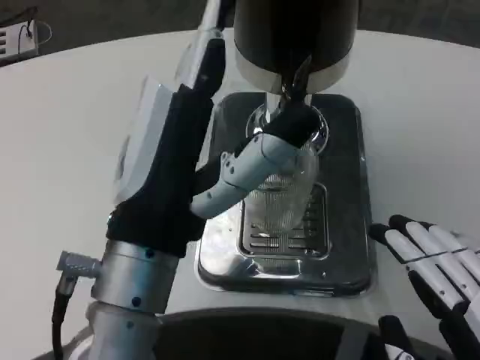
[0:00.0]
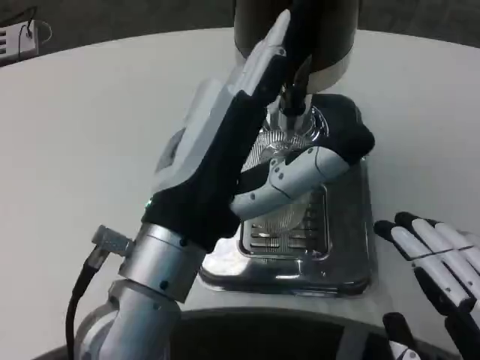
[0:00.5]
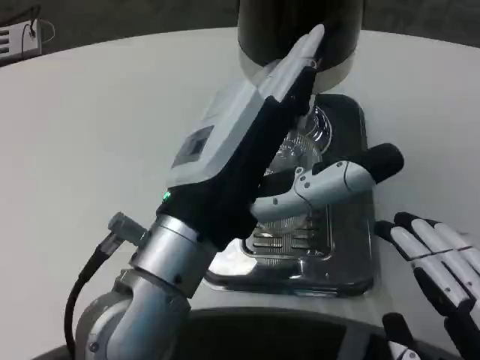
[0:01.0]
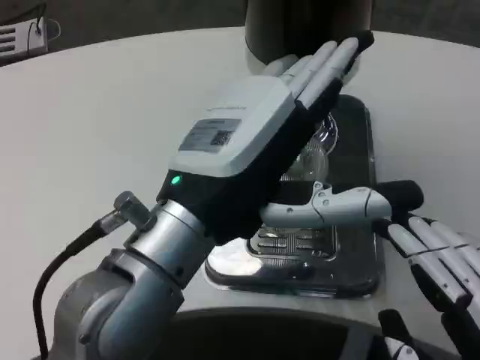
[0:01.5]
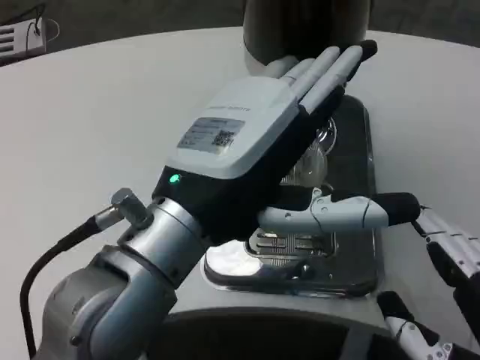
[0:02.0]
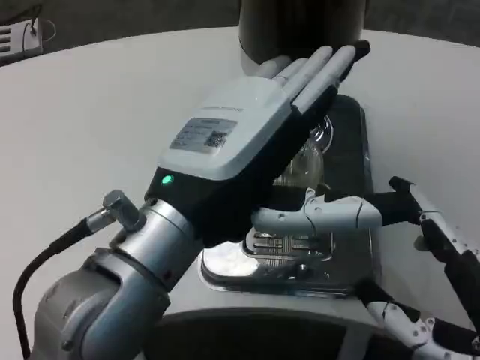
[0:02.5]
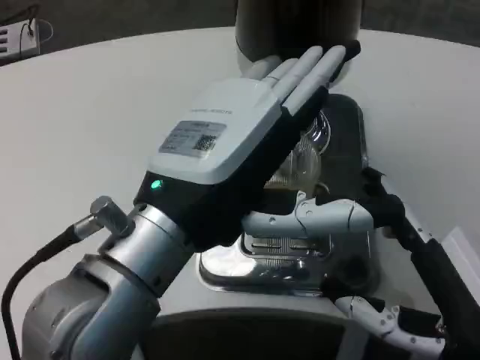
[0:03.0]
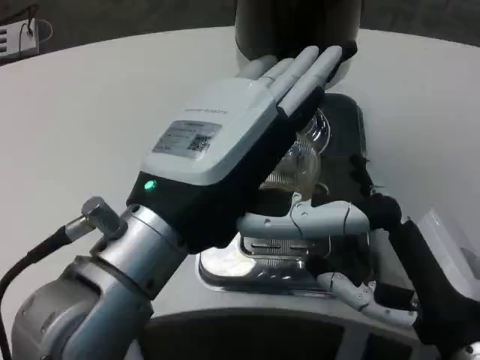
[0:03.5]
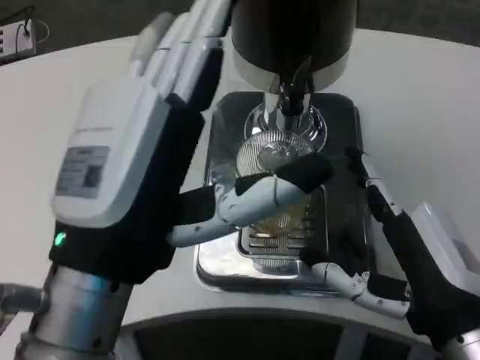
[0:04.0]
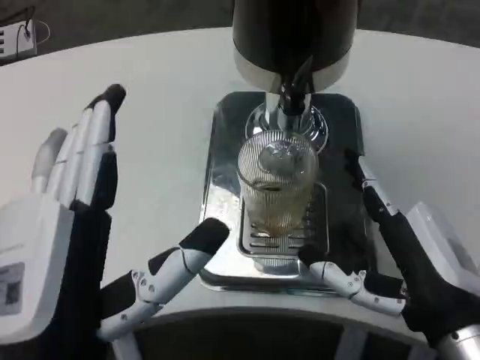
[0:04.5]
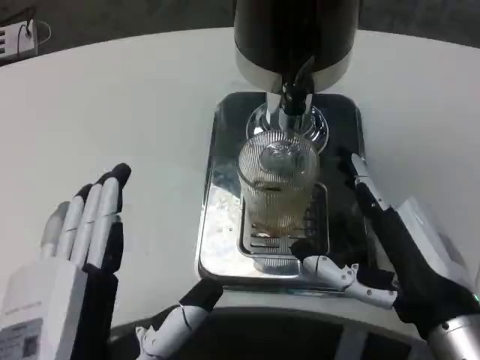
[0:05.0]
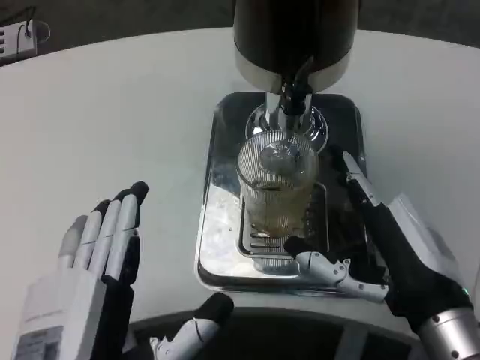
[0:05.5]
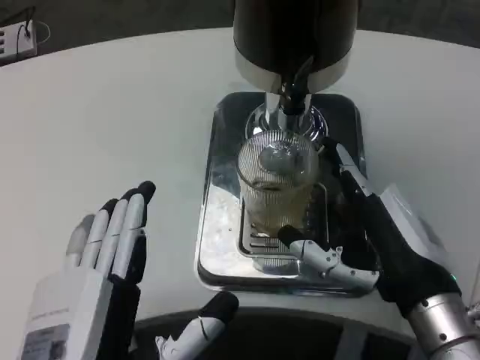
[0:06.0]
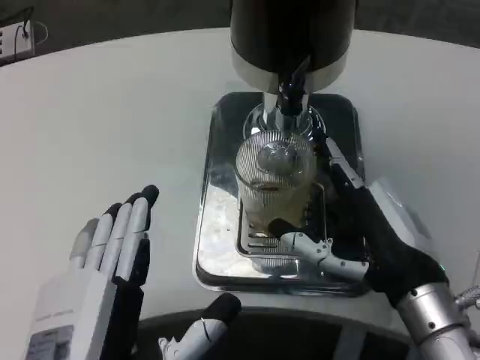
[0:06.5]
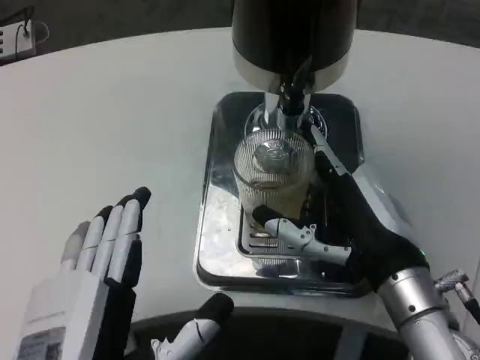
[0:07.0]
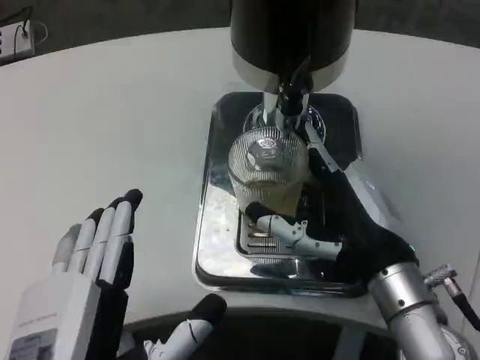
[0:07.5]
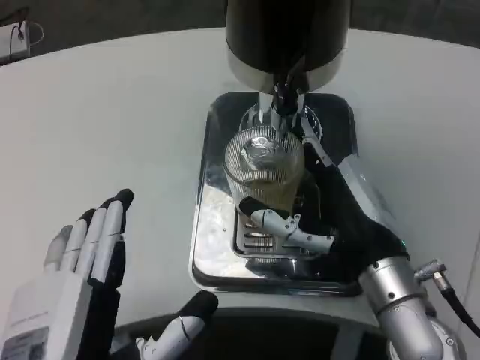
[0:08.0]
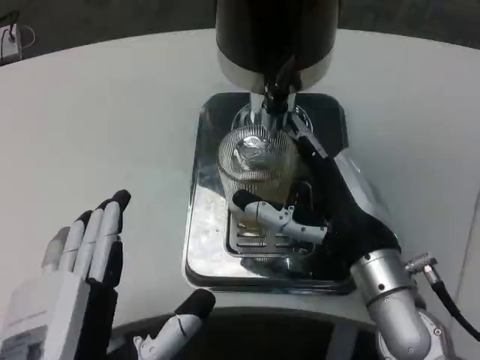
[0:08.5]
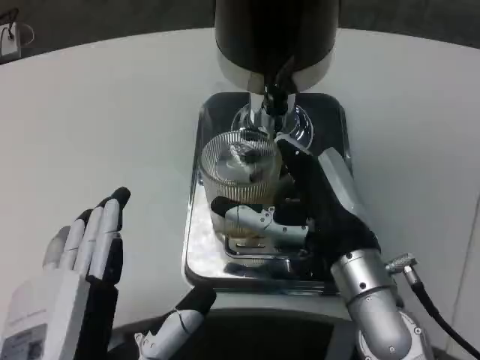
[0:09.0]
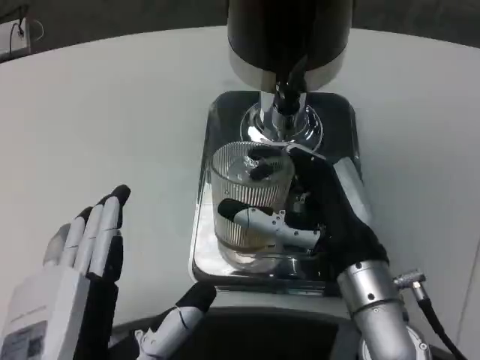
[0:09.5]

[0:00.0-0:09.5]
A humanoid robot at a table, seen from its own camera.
Task of the whole recording: Grasp the cup under the faucet to collect the drink, then remove the cup.
0:02.0 to 0:04.0: The right hand goes about 10 cm forward. Meanwhile the left hand shifts by approximately 5 cm.
0:04.0 to 0:05.5: The left hand travels downward by about 10 cm.
0:05.5 to 0:07.5: The right hand ends up roughly 5 cm from where it was.

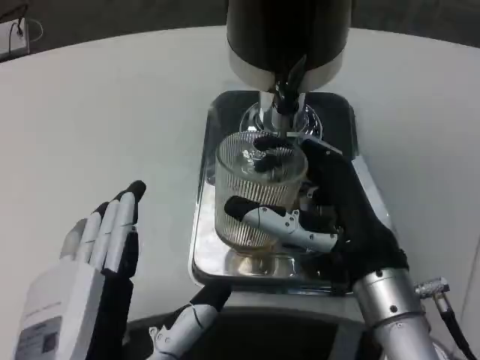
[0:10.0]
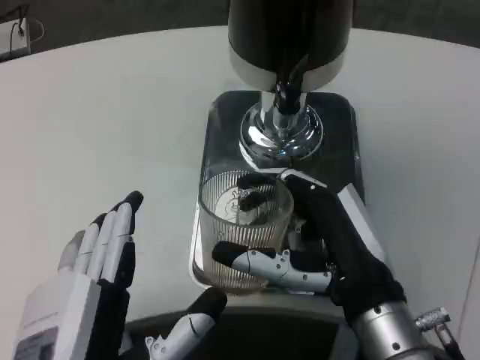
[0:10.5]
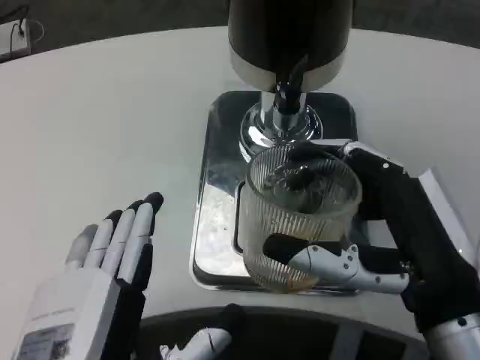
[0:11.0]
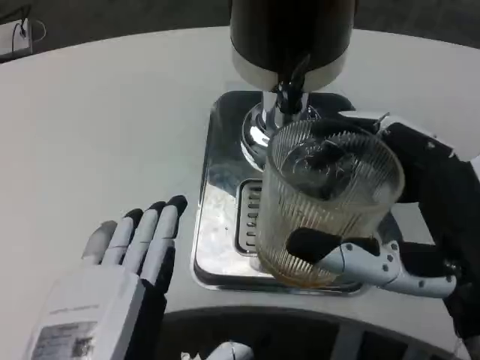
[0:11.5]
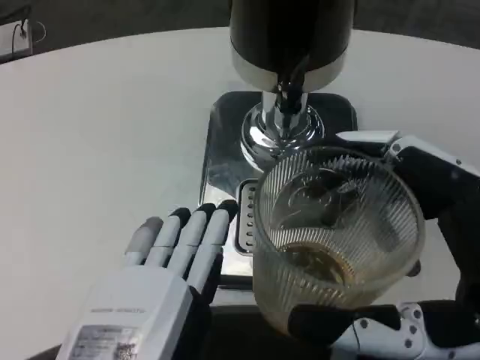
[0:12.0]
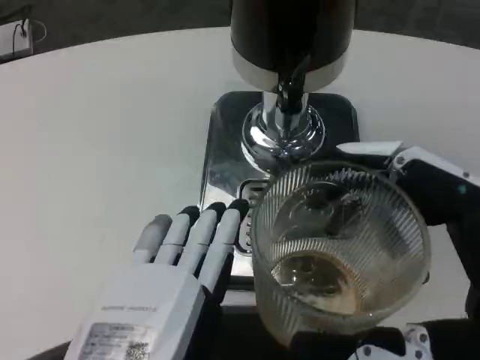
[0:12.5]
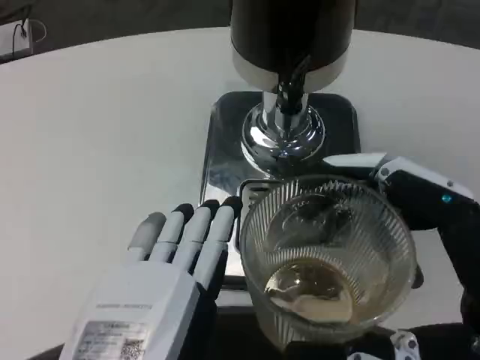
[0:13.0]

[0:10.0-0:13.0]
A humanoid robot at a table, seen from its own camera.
Task of the whole recording: Grasp the cup under the faucet to collect the drink, then remove the cup.
0:10.0 to 0:11.5: The right hand moves backward, approximately 10 cm.

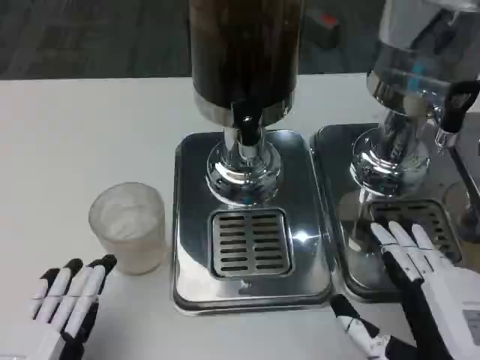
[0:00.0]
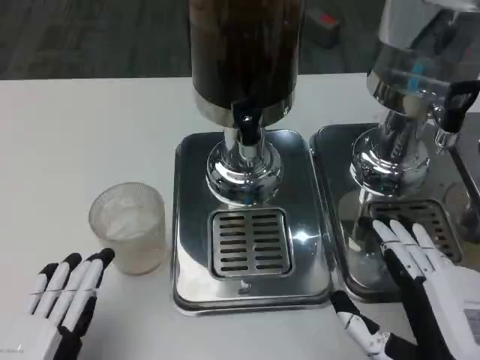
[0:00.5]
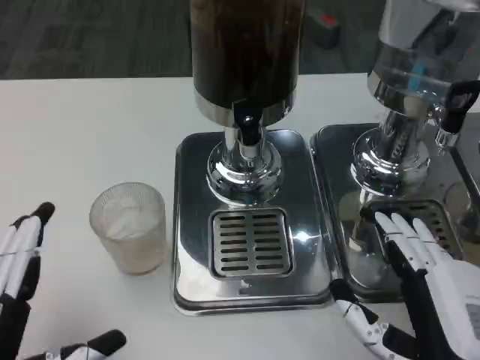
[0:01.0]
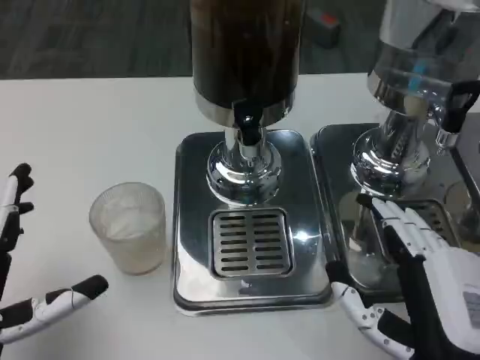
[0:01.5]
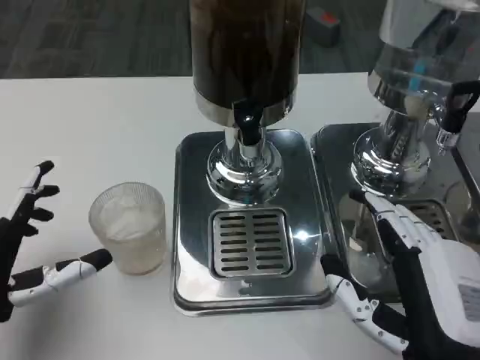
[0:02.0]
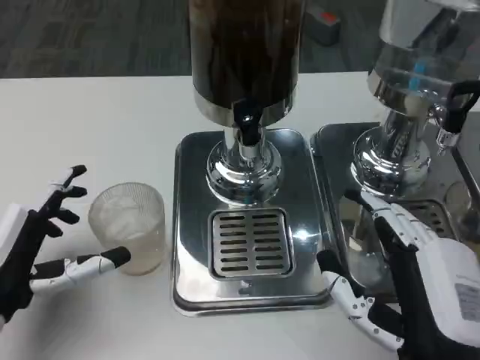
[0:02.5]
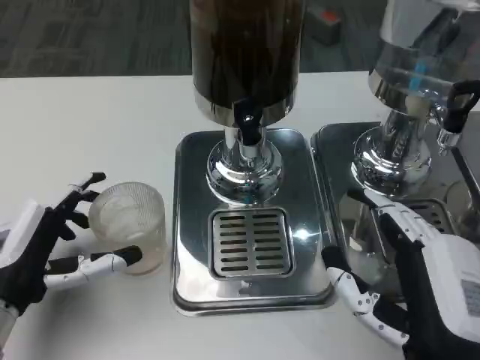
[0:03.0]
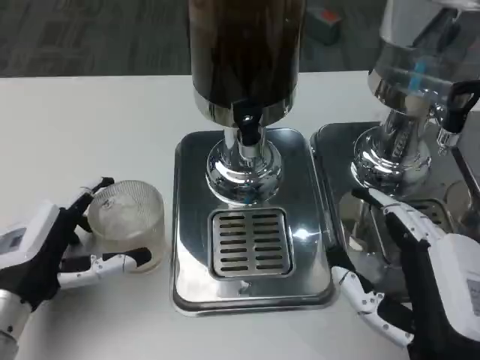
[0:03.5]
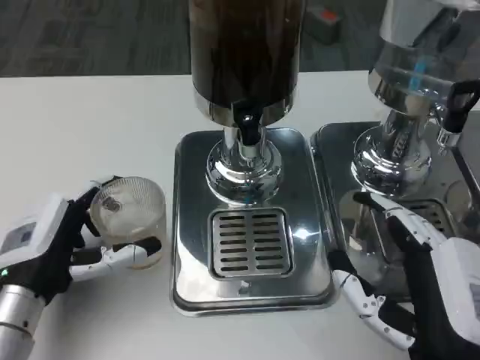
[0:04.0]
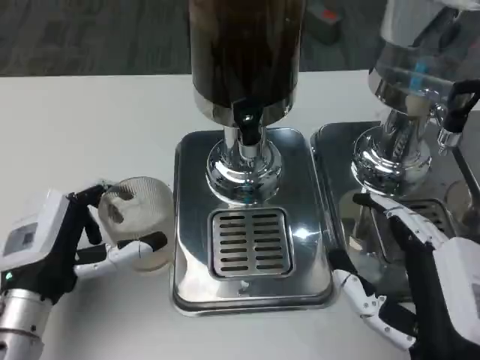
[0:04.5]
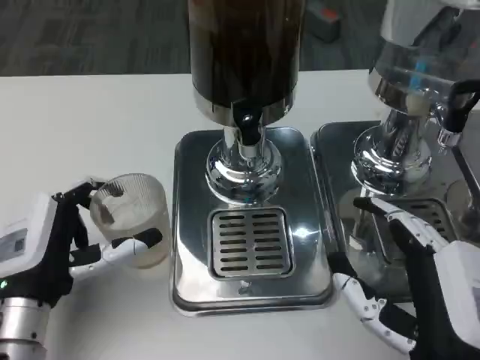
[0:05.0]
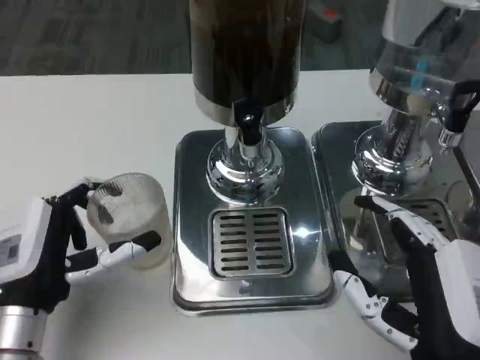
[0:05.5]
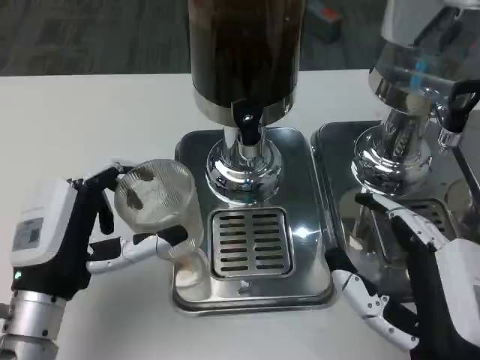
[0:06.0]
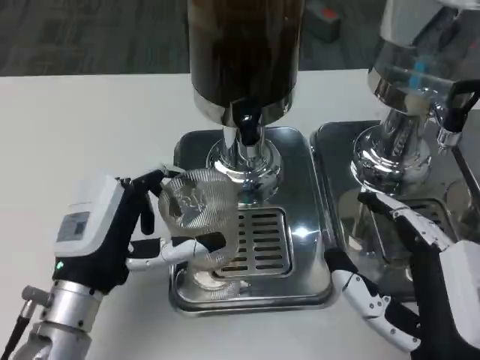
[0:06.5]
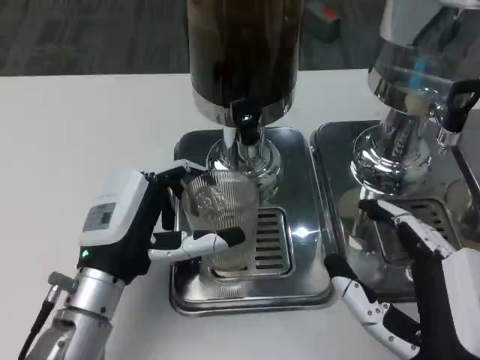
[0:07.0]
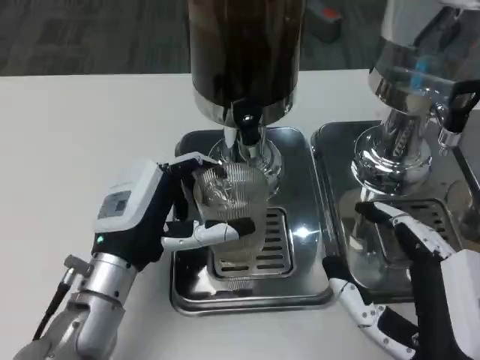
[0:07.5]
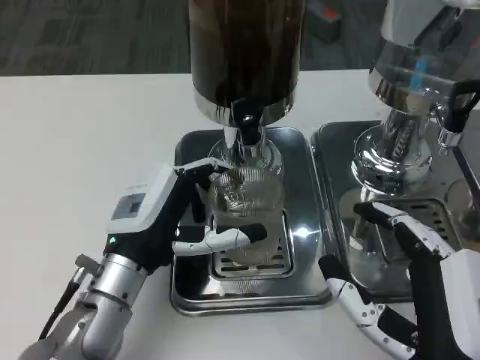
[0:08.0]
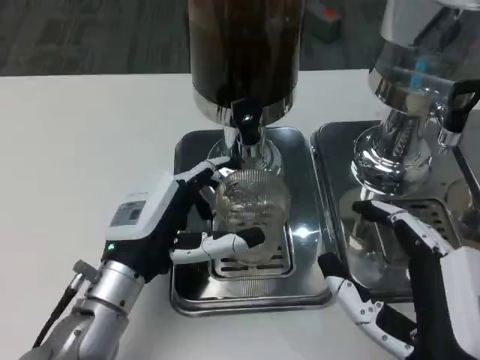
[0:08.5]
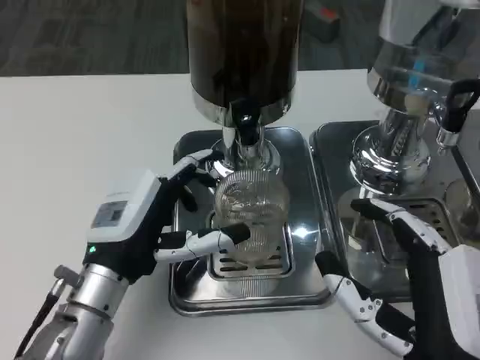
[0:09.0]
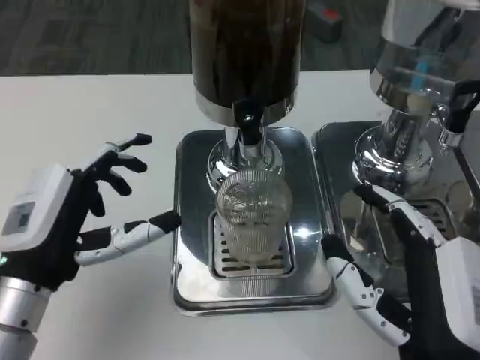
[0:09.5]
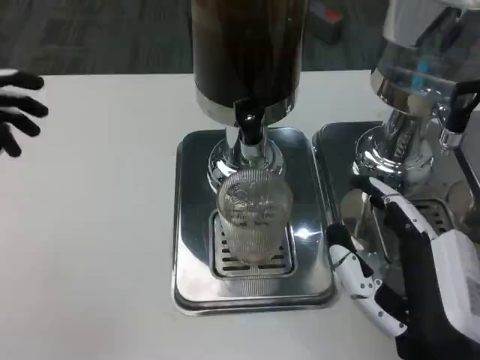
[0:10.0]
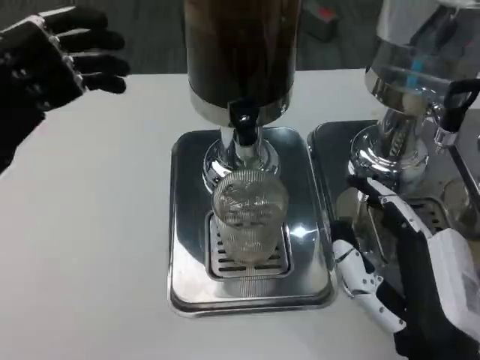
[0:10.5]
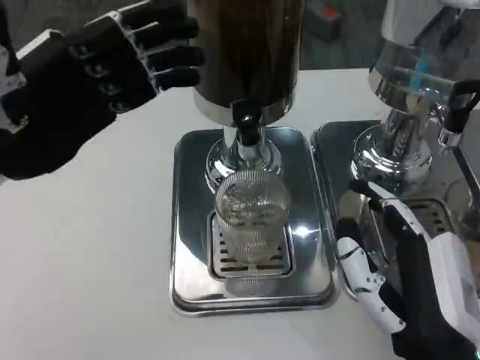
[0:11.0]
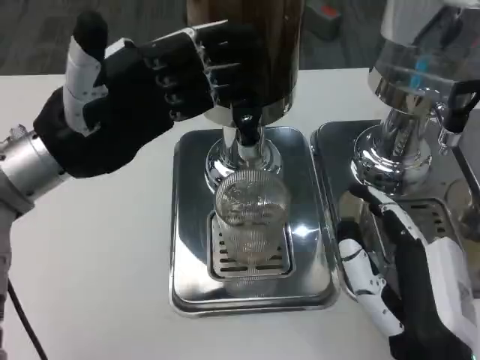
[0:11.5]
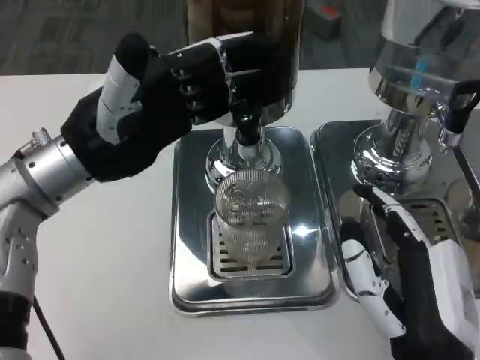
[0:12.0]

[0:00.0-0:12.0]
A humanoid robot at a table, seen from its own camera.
Task of the whole recording: Grasp the cup under the faucet to collect the drink, then remove the cup.
0:00.0 to 0:02.0: The left hand travels forward by roughly 10 cm.
0:02.0 to 0:04.0: The left hand ends up about 5 cm from where it was.
0:04.0 to 0:06.0: The hands move only a little.
0:06.0 to 0:08.0: The left hand heads to the right, covering about 5 cm.
0:08.0 to 0:10.0: The left hand travels to the left and upward by roughly 15 cm.
0:10.0 to 0:12.0: The left hand shifts about 15 cm forward and to the right.

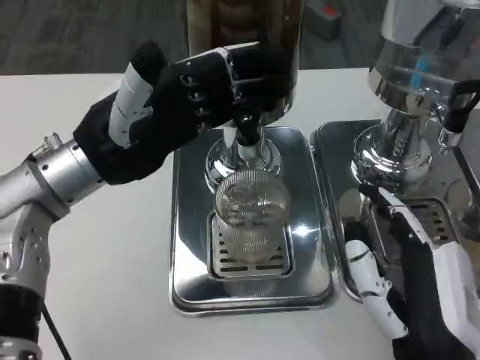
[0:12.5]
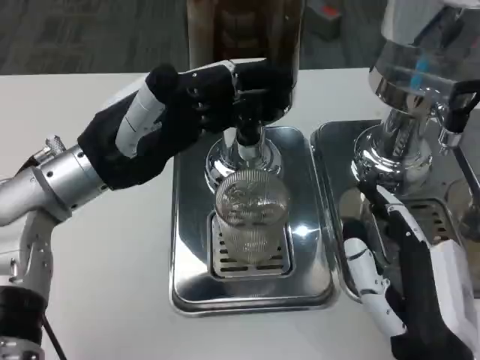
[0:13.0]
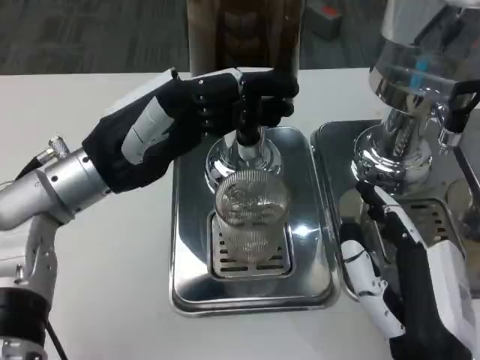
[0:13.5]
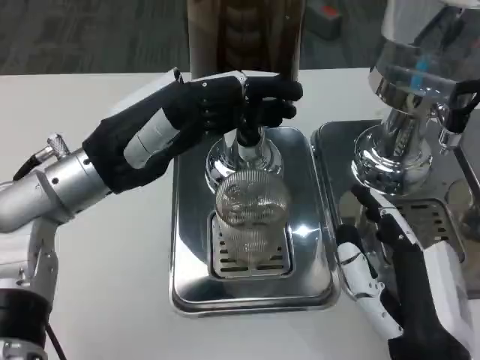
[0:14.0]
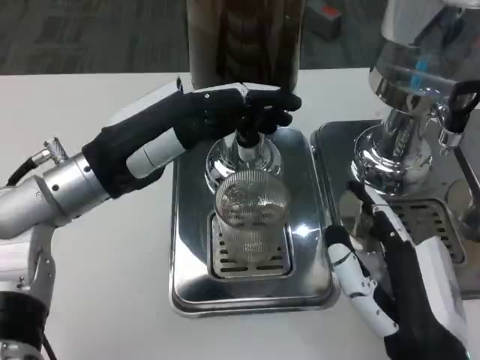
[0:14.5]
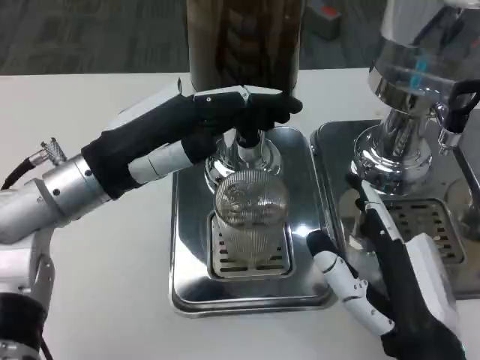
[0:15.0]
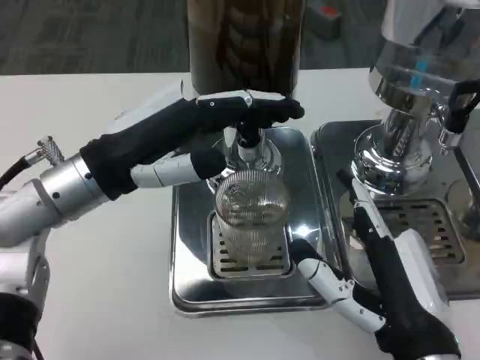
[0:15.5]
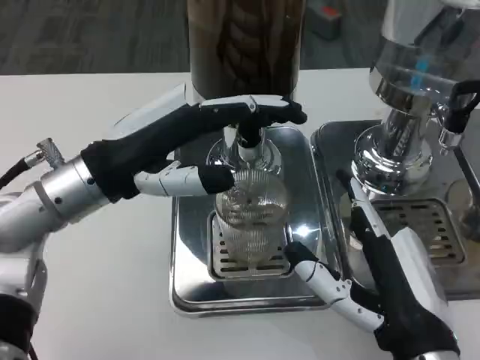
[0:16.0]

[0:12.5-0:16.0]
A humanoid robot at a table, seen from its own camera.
Task of the whole recording: Grasp the cup under the faucet to collect the drink, then remove the cup.
0:14.5 to 0:16.0: The hands stay close to where they were, moving slightly.